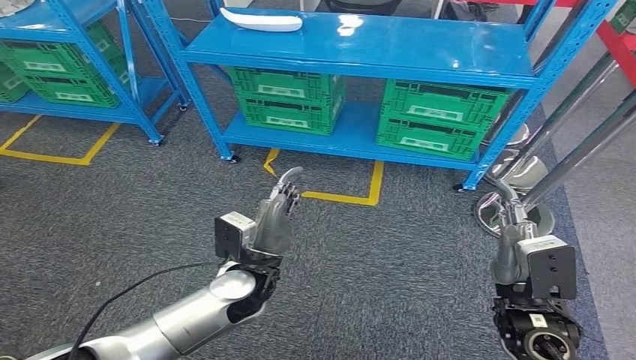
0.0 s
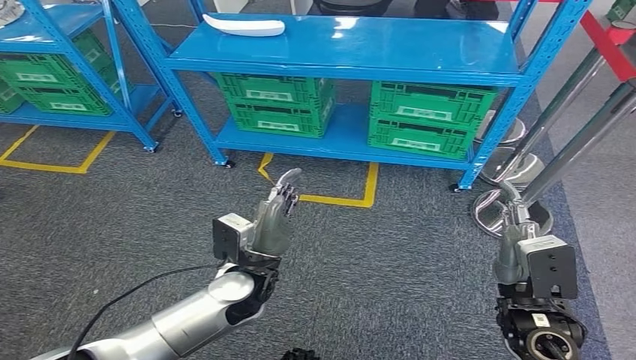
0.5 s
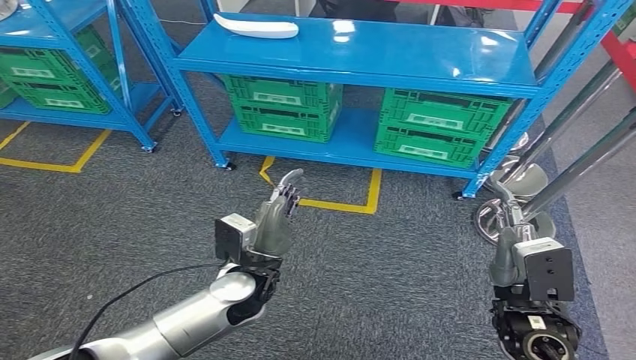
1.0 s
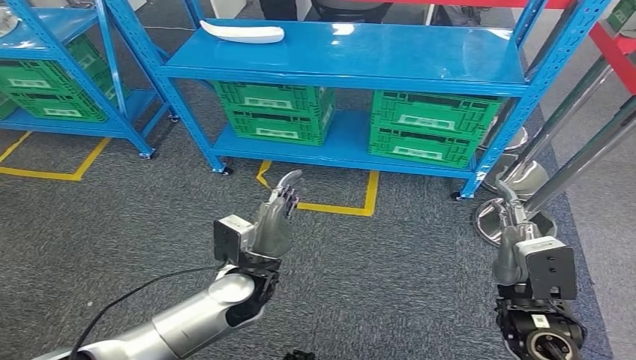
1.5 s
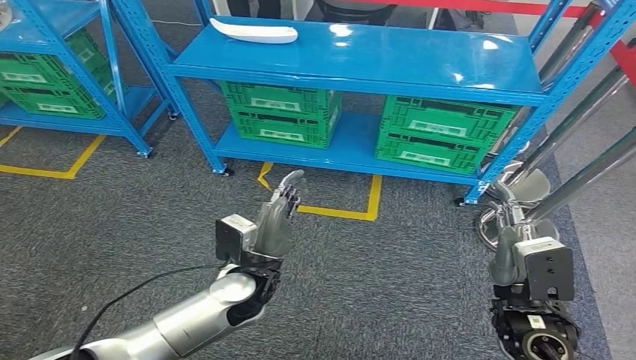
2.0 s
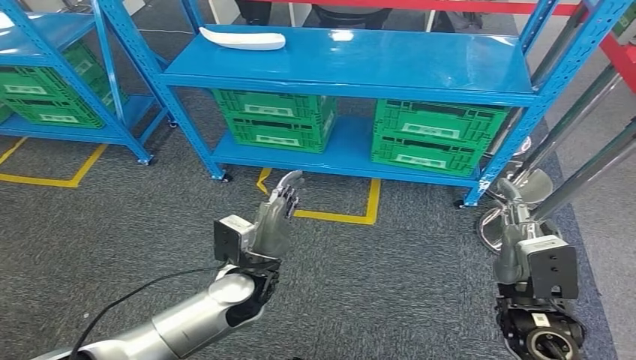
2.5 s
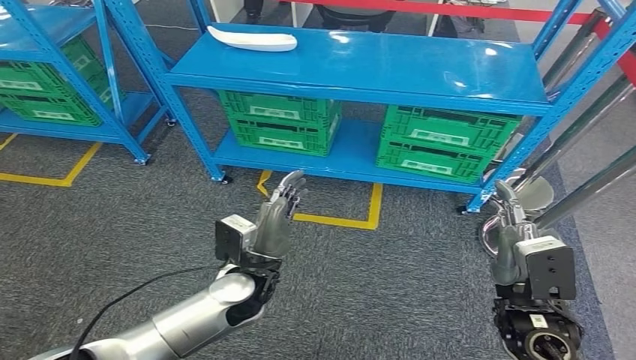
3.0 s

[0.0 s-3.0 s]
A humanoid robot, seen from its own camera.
Step, 0.0 to 3.0 s: Move to the initial position at the workbench.
